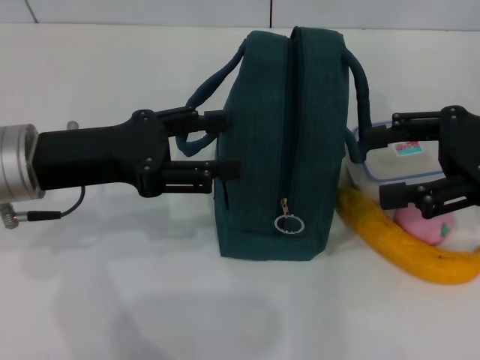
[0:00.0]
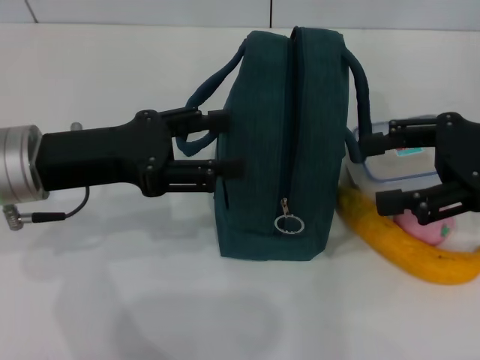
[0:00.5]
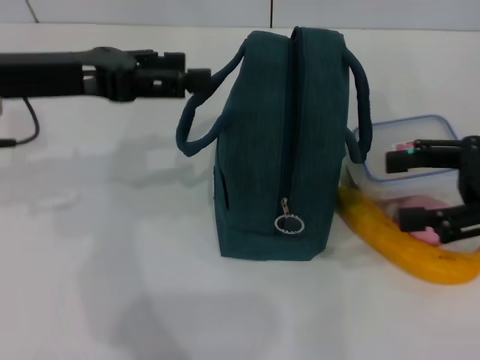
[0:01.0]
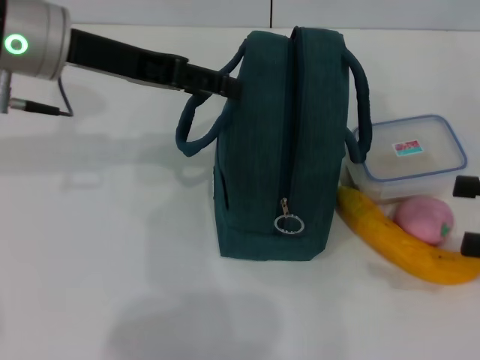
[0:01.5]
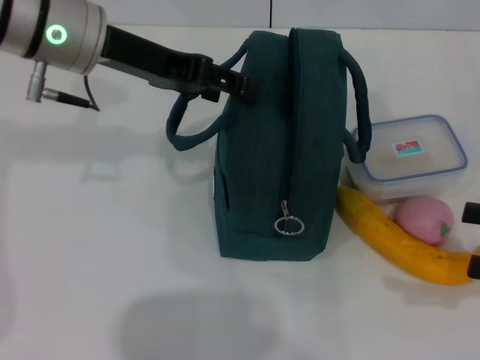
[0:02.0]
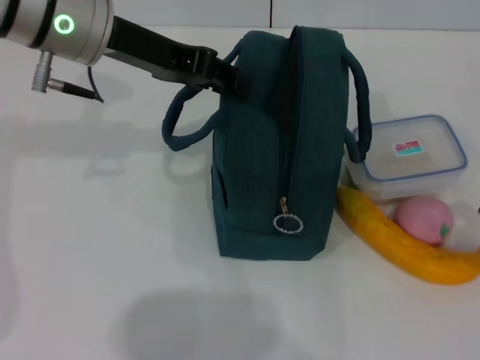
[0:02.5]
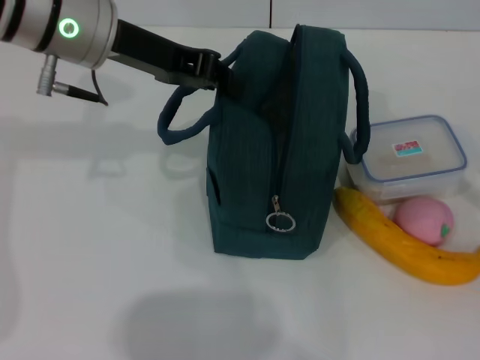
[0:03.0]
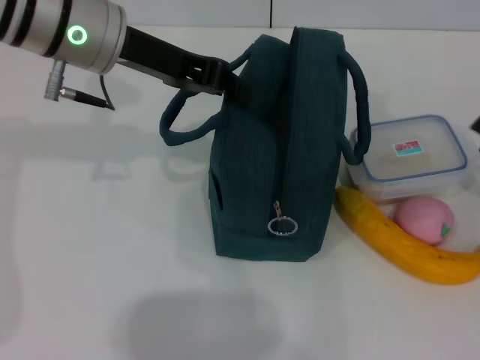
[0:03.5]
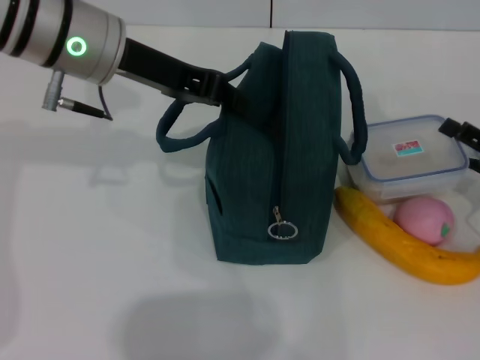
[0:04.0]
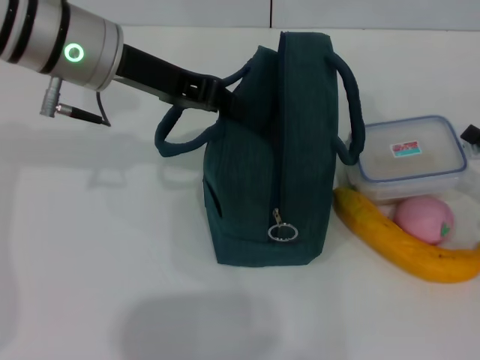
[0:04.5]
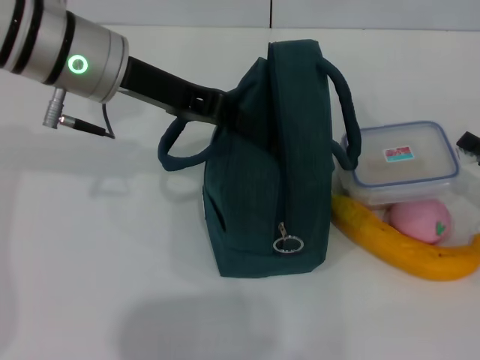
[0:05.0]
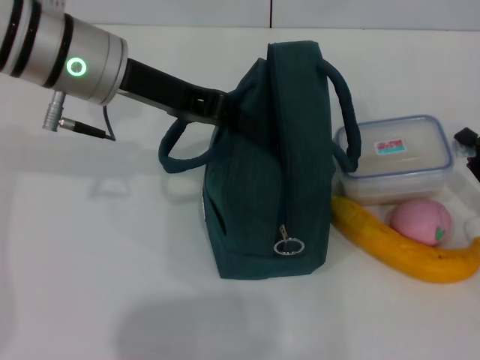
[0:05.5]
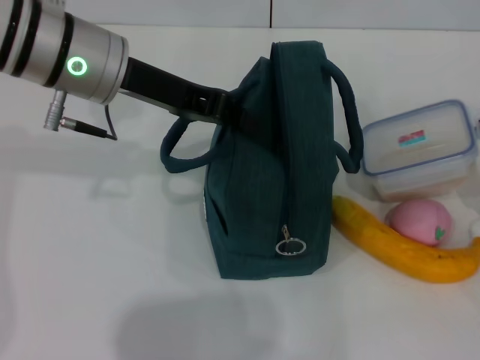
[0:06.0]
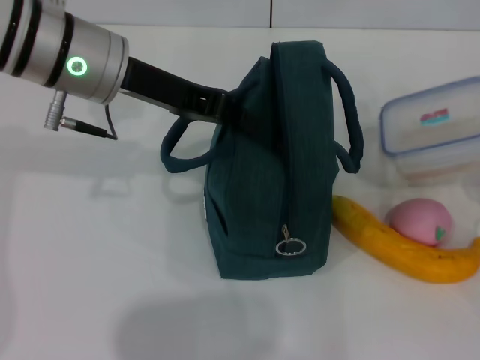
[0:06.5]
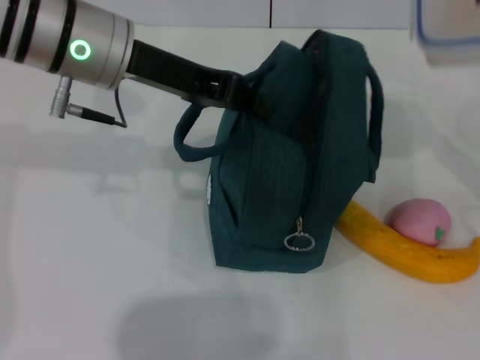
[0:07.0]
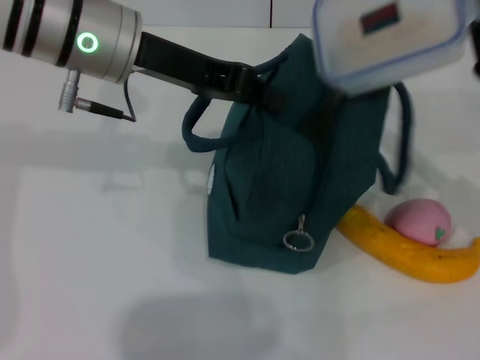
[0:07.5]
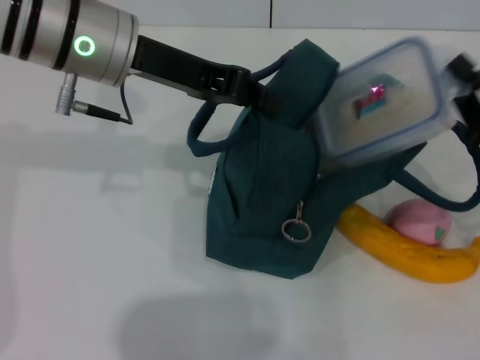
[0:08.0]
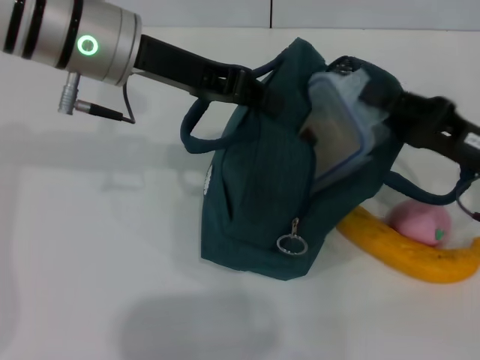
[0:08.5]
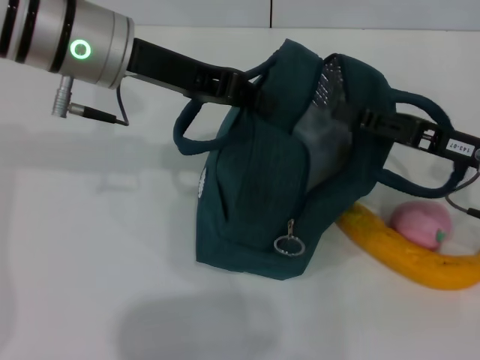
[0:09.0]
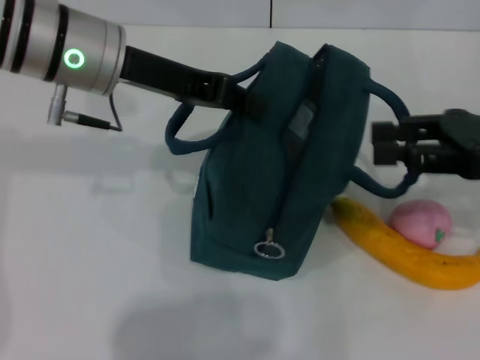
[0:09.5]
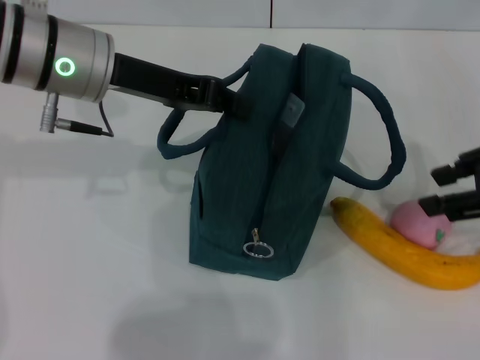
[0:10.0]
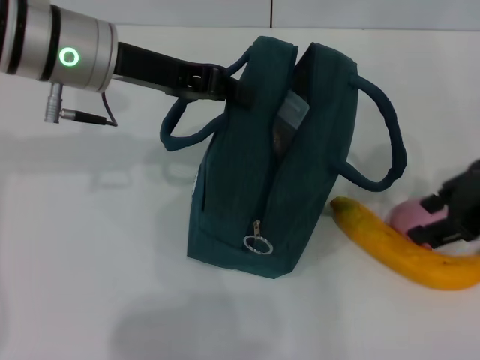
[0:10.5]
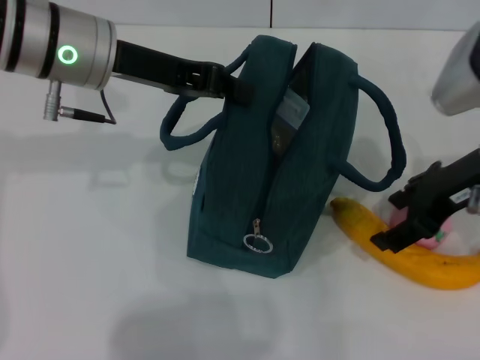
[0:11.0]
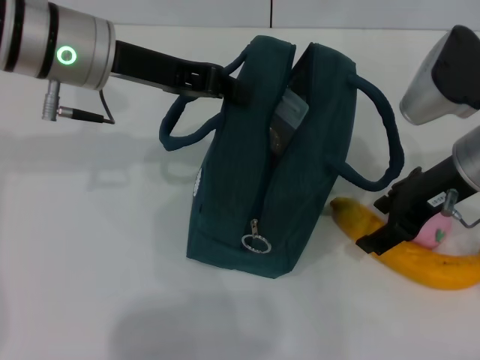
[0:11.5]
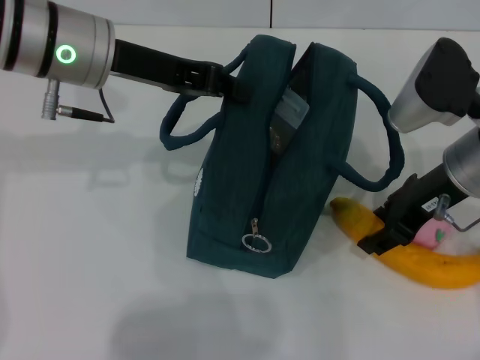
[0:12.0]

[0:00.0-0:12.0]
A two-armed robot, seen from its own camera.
Step, 0:00.0 to 0:04.0: Hold the lunch bag with your left hand.
Step, 0:04.5 to 0:05.0: Pick up the lunch box with your right hand.
Step, 0:05.5 to 0:09.0: Place the lunch box into the lunch bag with your right hand.
0:00.0 to 0:02.0: The left gripper goes approximately 15 cm forward, upward and to the right. The right gripper travels backward, to the right and downward by approximately 15 cm.
0:02.0 to 0:04.0: The right gripper travels downward and forward by roughly 10 cm. The left gripper closes.
0:04.0 to 0:06.0: The right gripper closes its fingers.
0:08.0 to 0:10.0: The right gripper travels upward by approximately 15 cm, and opens its fingers.
0:10.0 to 0:12.0: The right gripper shifts approximately 10 cm to the left, downward and forward.

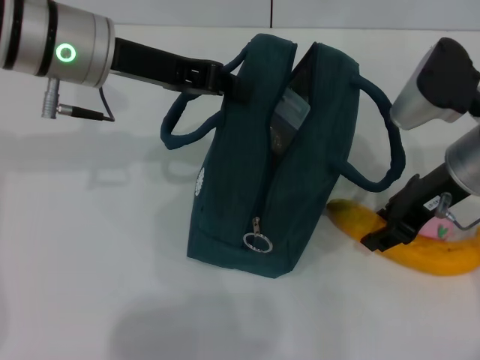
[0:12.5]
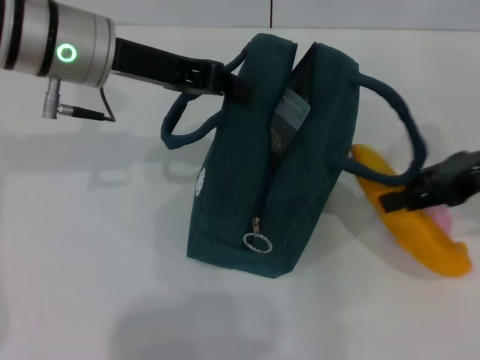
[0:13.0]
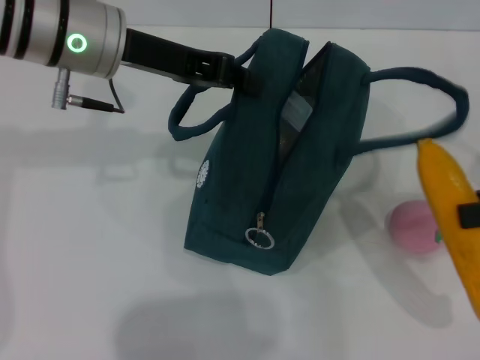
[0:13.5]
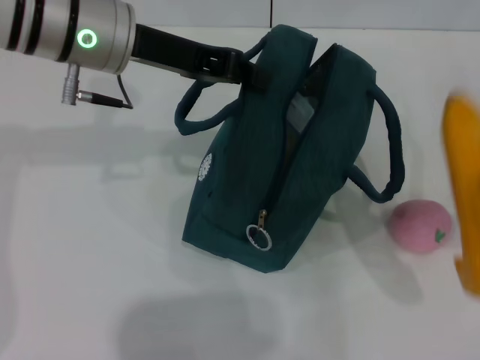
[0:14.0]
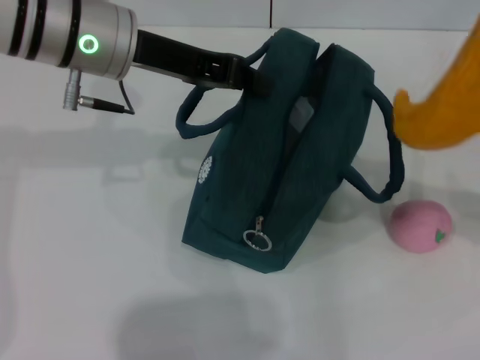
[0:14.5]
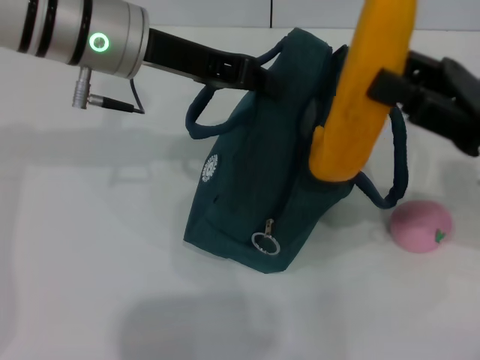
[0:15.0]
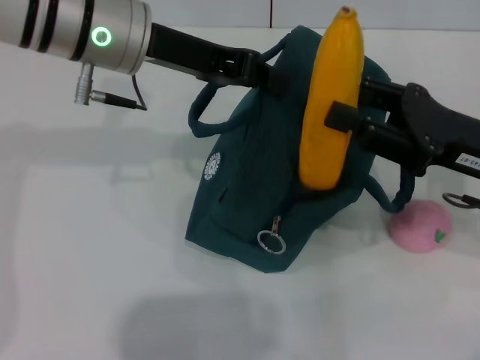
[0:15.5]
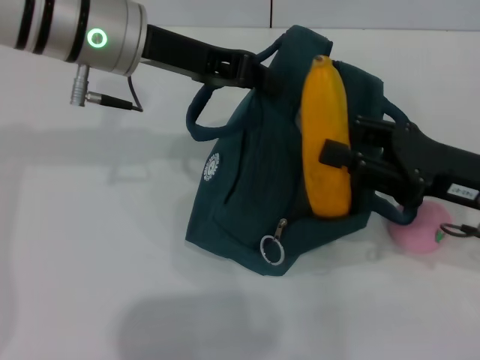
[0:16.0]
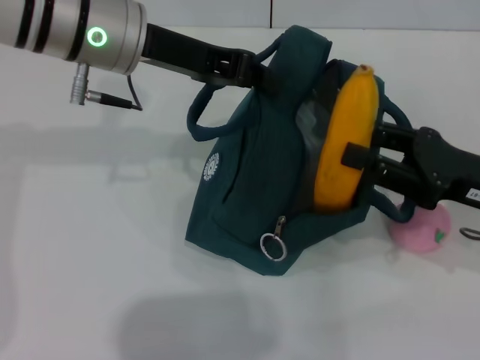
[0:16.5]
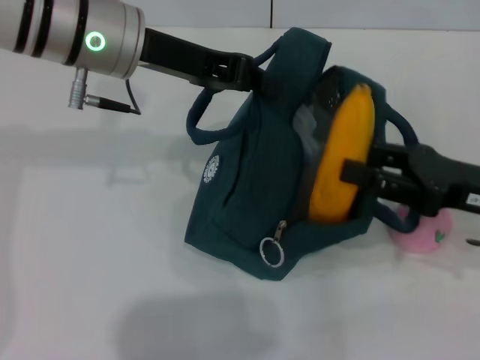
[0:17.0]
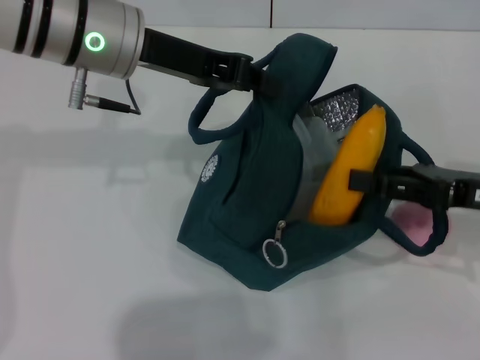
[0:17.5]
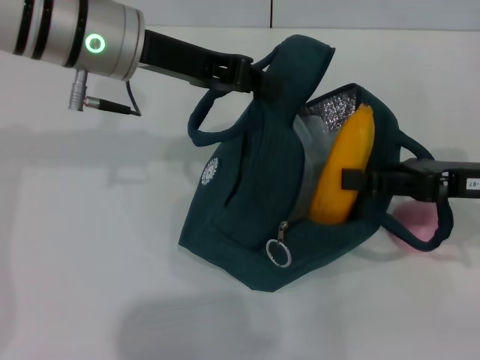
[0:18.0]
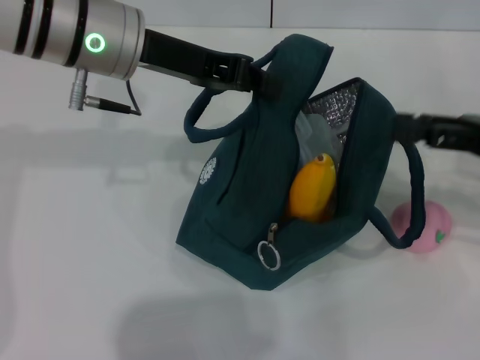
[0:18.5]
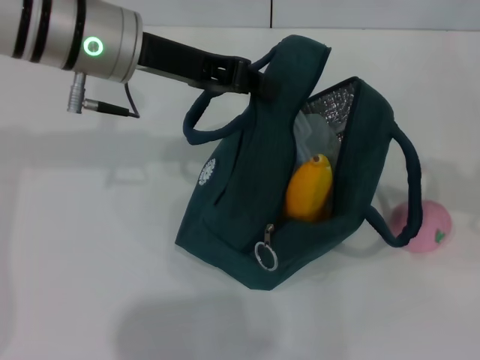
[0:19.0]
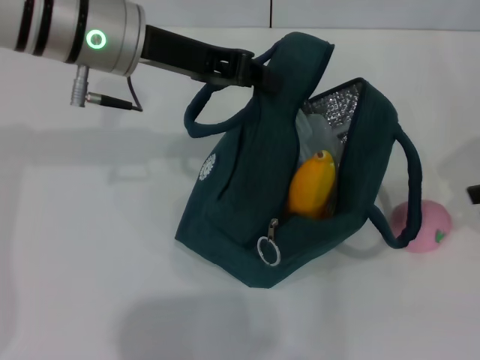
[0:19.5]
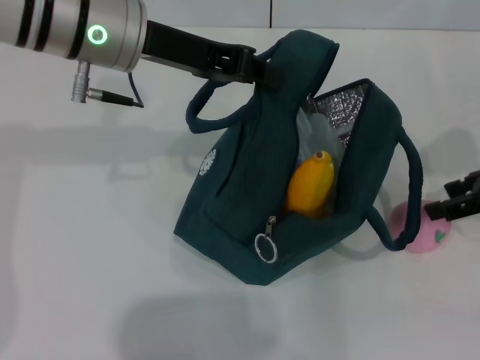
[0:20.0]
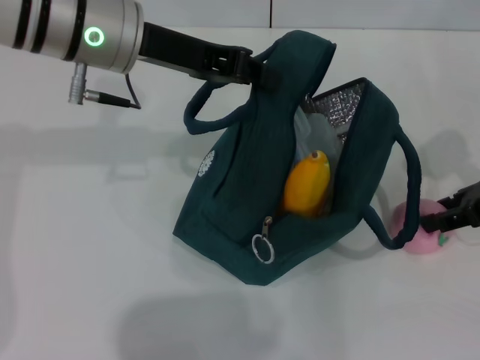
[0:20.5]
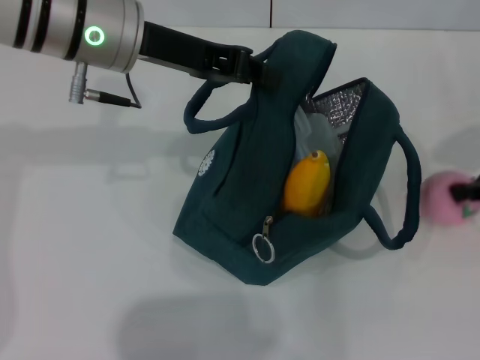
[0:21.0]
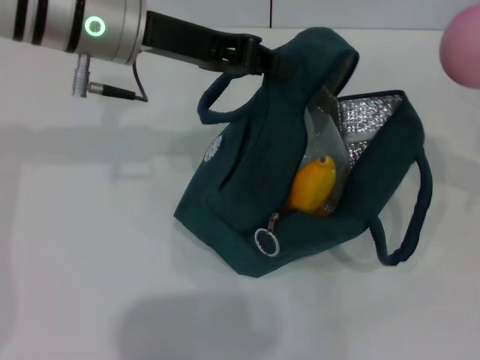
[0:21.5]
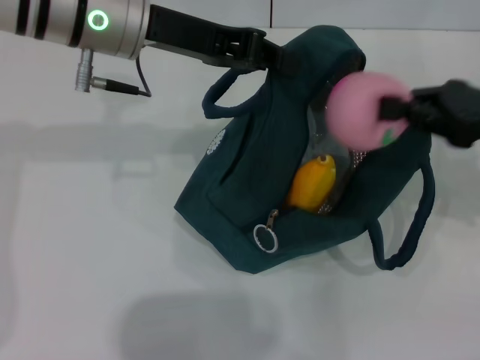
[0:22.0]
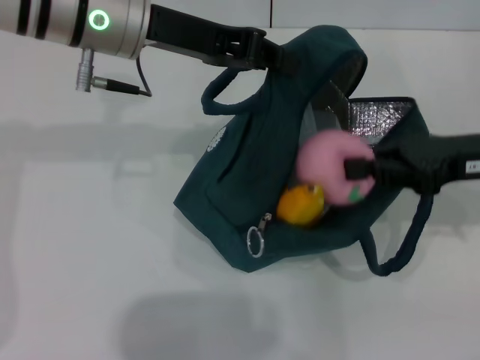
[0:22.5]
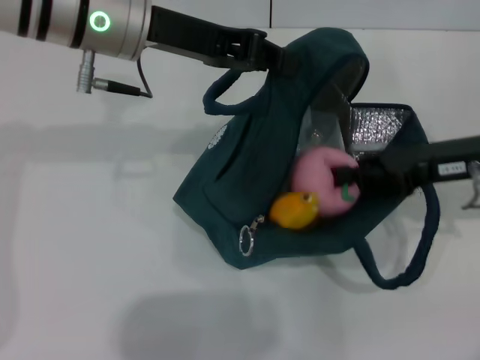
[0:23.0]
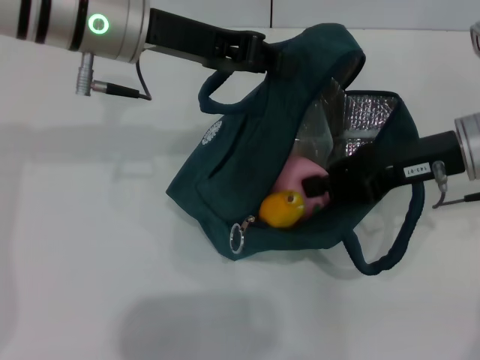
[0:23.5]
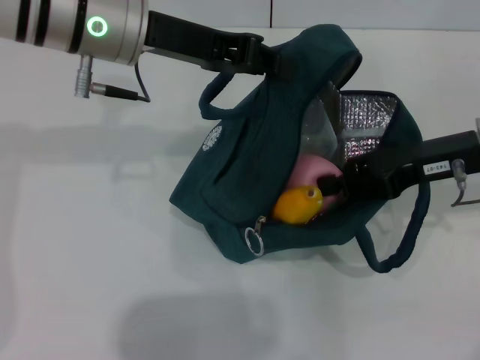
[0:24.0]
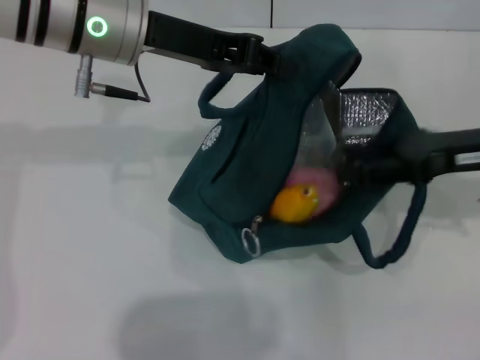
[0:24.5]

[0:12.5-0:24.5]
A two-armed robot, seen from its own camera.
Step, 0:12.5 to 0:18.5: Put the banana into the lunch bag with your right hand.
Step, 0:19.0 to 0:20.5: Grab the peach with your right hand.
0:12.5 to 0:14.5: The right gripper shifts some 15 cm to the right and backward.
0:14.5 to 0:16.5: The right gripper is displaced downward and to the left by roughly 10 cm.
0:16.5 to 0:18.5: The right gripper goes roughly 5 cm upward.
0:18.5 to 0:20.5: The right gripper moves roughly 5 cm upward and comes back.
0:20.5 to 0:22.5: The right gripper travels to the right and back again, some 5 cm each way, and closes up.
0:22.5 to 0:24.5: The right gripper opens.

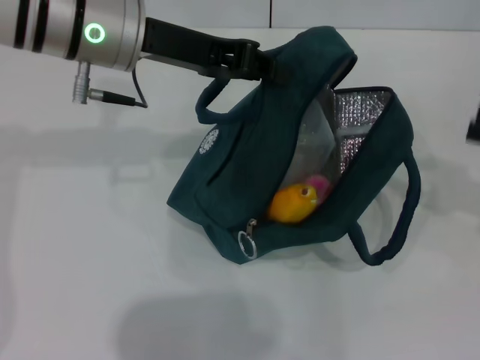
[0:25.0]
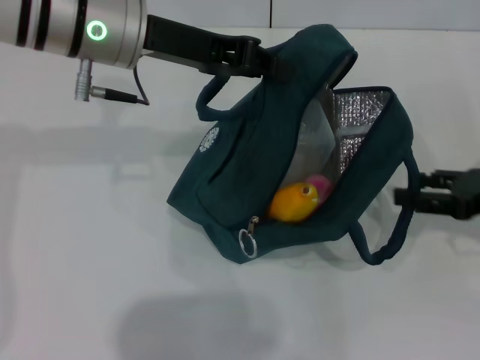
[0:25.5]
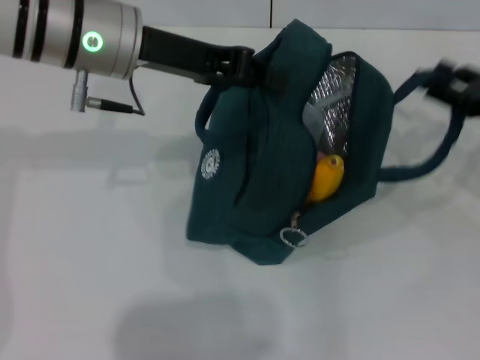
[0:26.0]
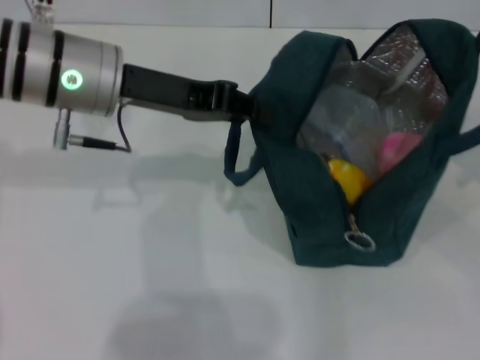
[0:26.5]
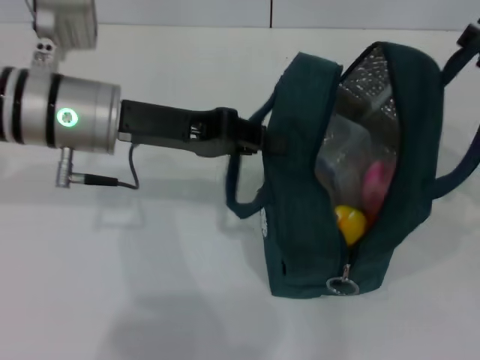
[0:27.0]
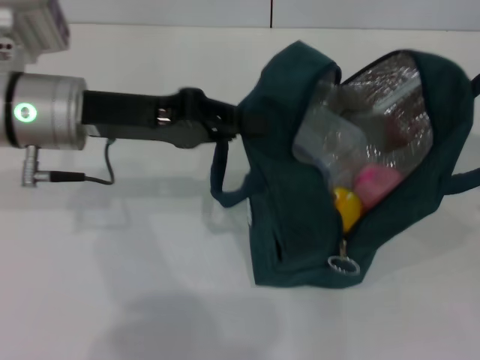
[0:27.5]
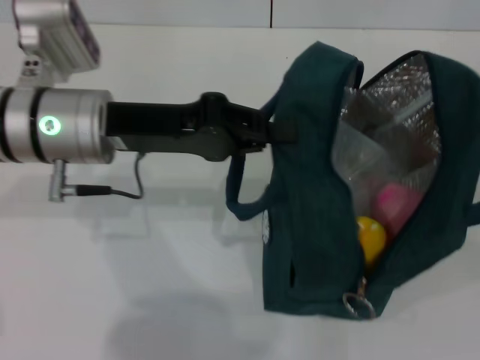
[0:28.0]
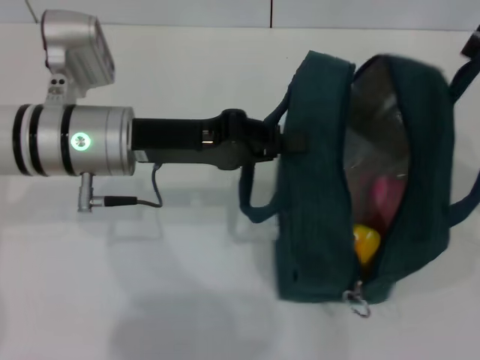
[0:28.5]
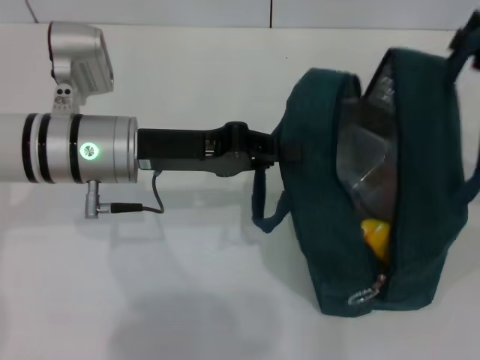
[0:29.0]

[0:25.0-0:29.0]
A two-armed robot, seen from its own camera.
0:25.0 to 0:27.0: The left gripper is displaced downward by some 5 cm.
